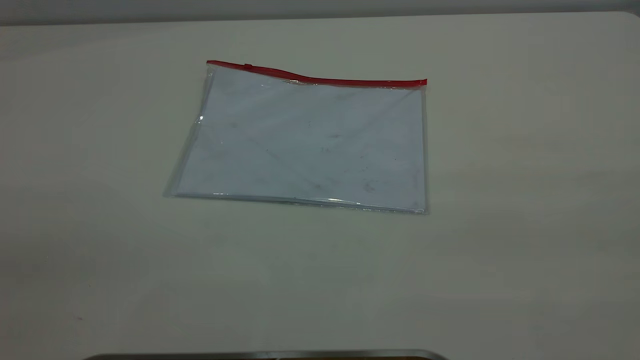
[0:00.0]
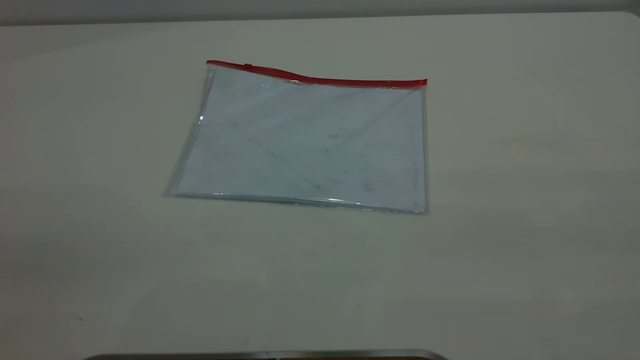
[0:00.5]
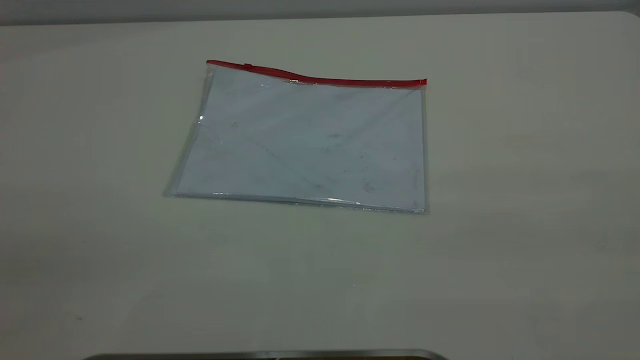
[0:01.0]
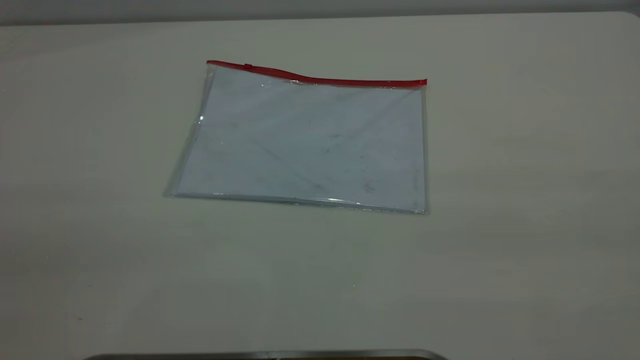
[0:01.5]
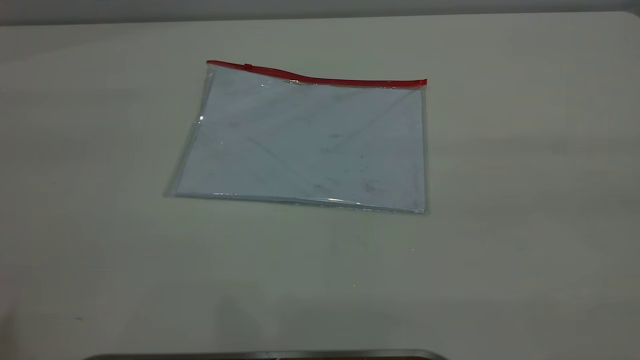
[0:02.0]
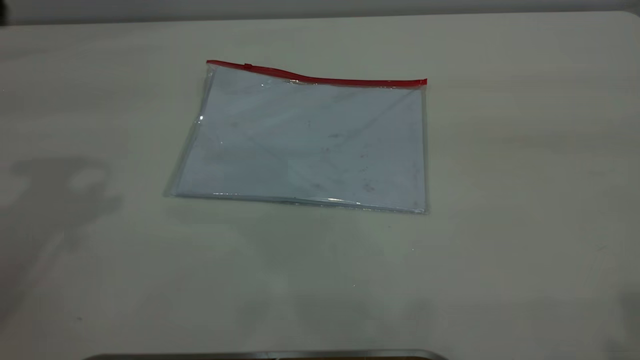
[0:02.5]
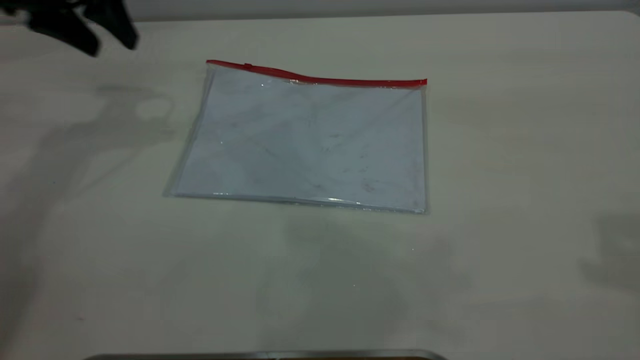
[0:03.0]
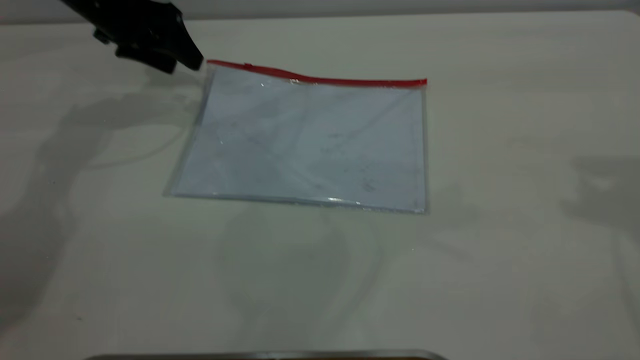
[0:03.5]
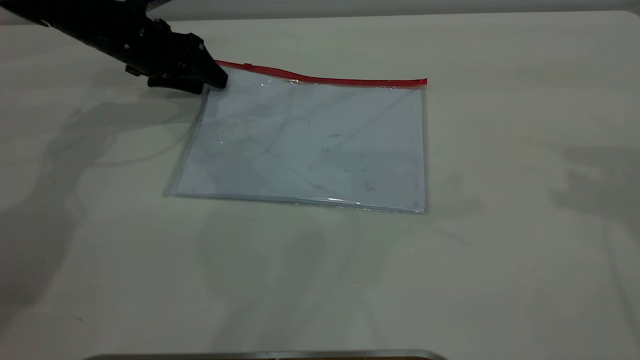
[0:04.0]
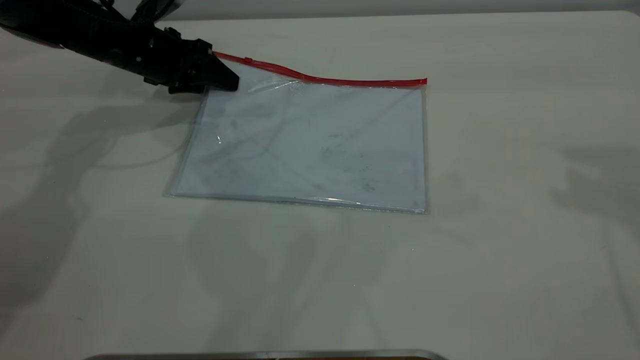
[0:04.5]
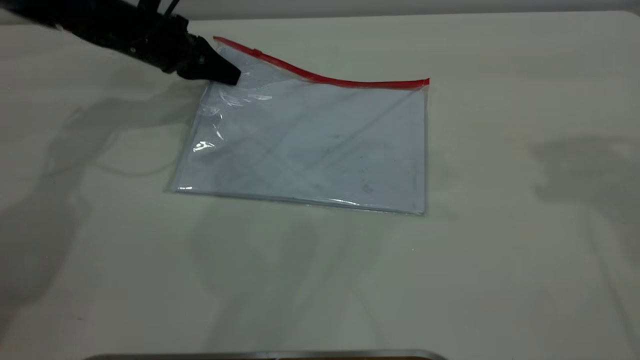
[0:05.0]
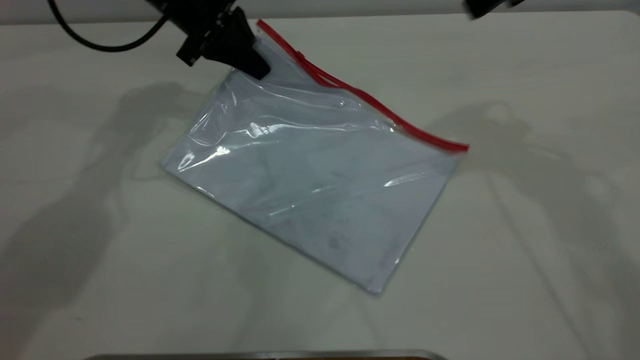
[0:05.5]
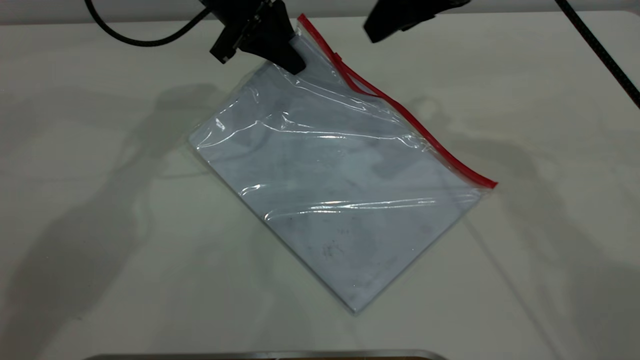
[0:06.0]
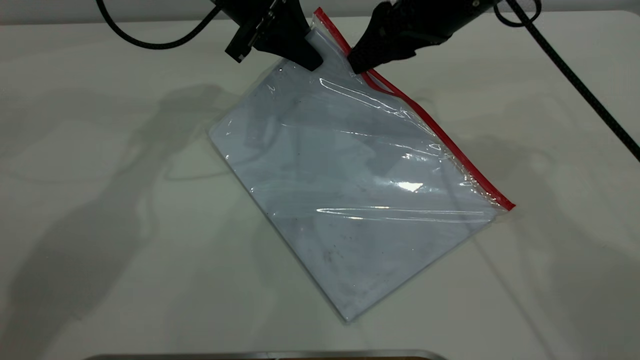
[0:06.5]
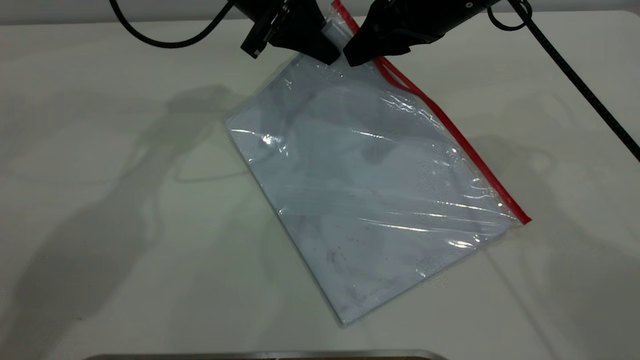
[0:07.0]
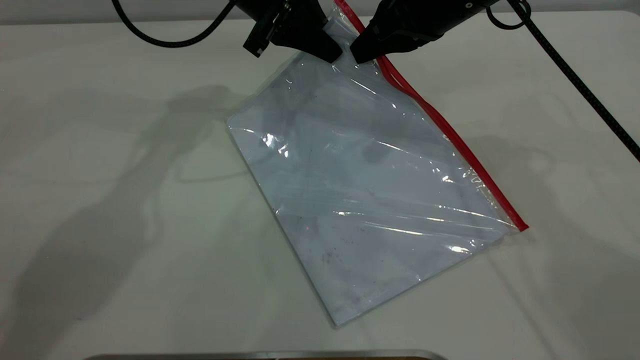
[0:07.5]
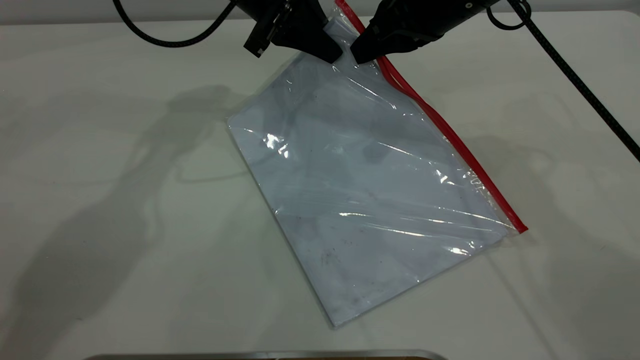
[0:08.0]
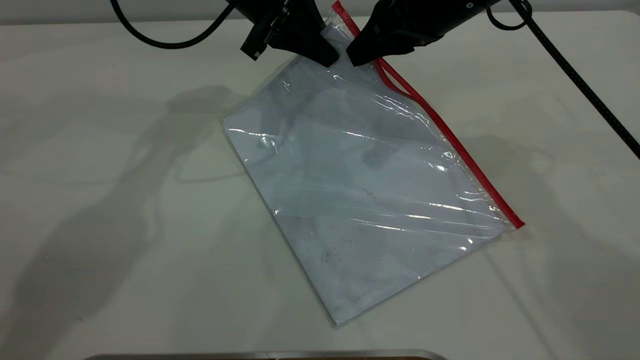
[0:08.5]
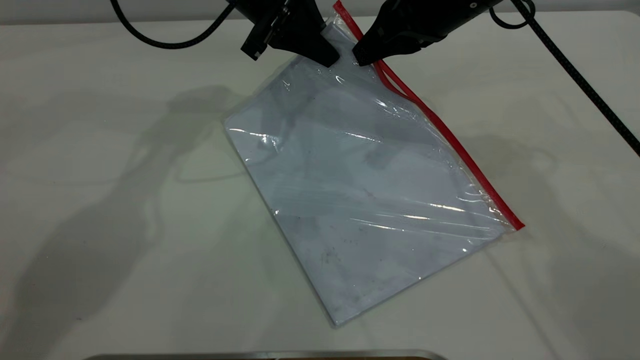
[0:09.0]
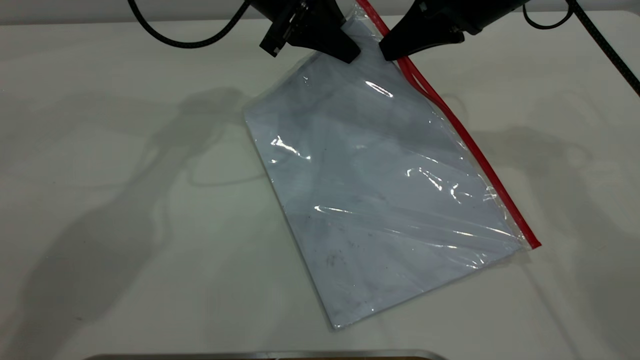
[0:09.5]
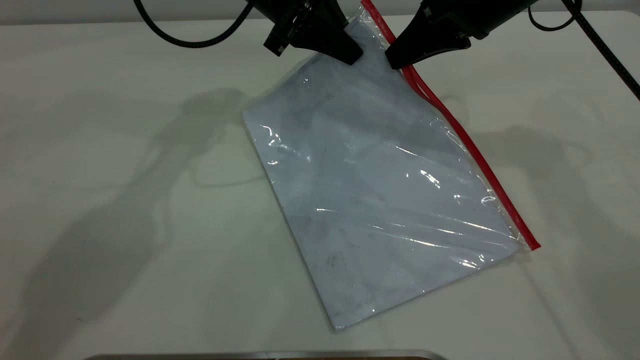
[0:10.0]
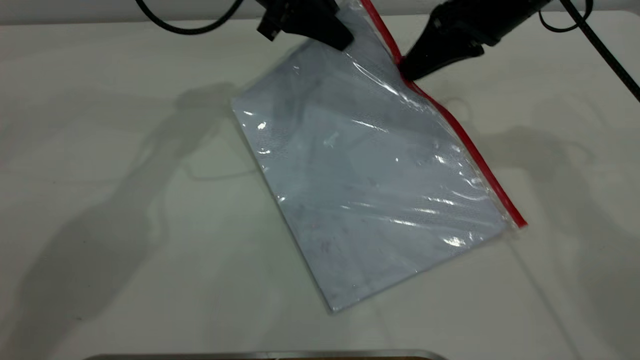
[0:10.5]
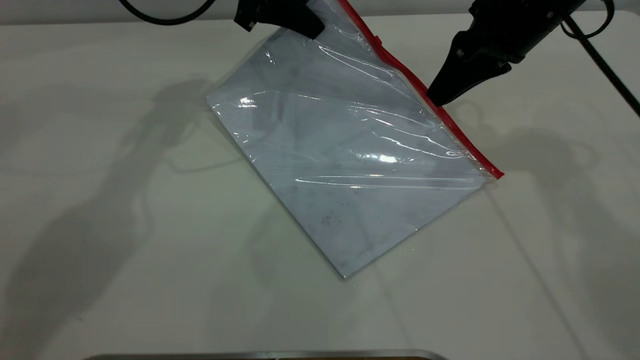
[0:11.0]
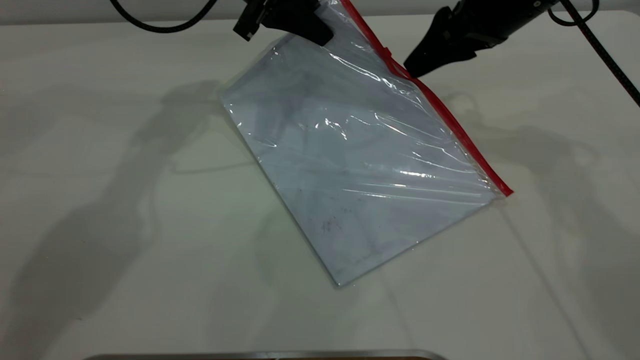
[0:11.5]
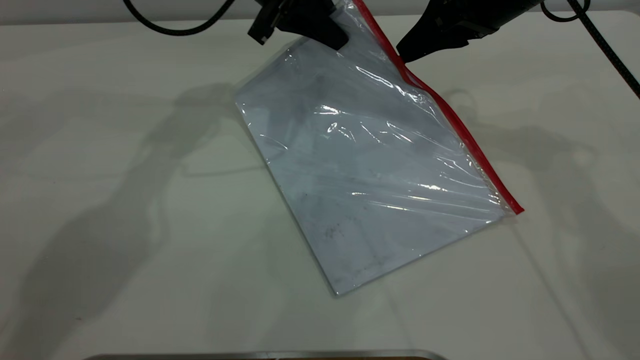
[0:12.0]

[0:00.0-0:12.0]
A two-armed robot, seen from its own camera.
Step, 0:00.0 to 0:05.0: Pick up the transparent plastic bag with the left gripper.
0:02.0 to 0:04.0: The left gripper moves forward and downward, some 50 cm.
0:04.0 to 0:06.0: The right gripper is displaced to the left, downward and forward by approximately 25 cm, while the left gripper travels to the right and upward by some 15 cm, and closes up.
0:06.0 to 0:08.0: The right gripper closes its fingers.
0:08.0 to 0:10.0: The right gripper opens, then closes once more.
0:10.0 to 0:12.0: The right gripper opens up.

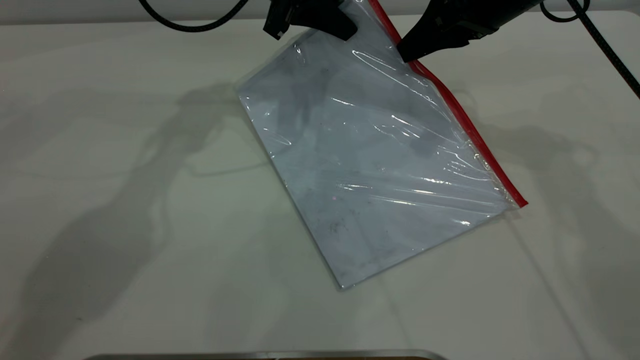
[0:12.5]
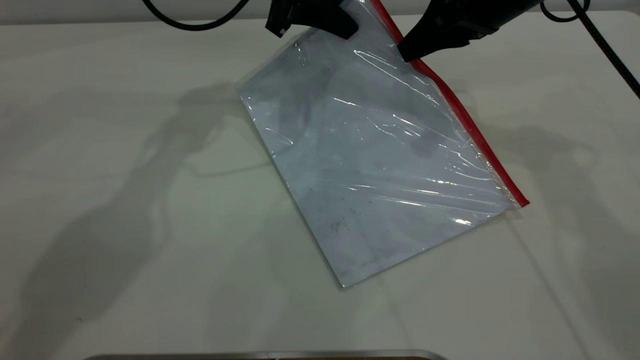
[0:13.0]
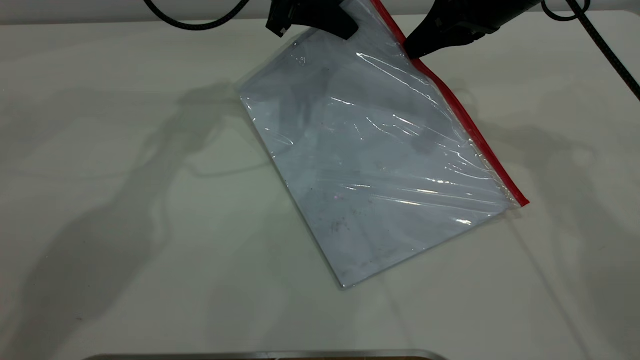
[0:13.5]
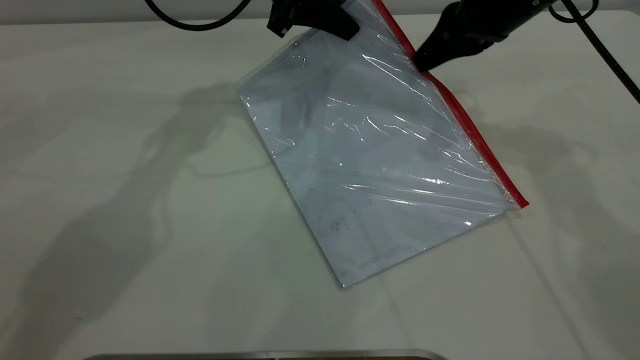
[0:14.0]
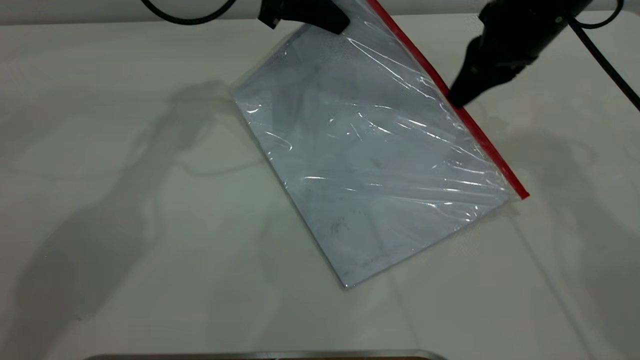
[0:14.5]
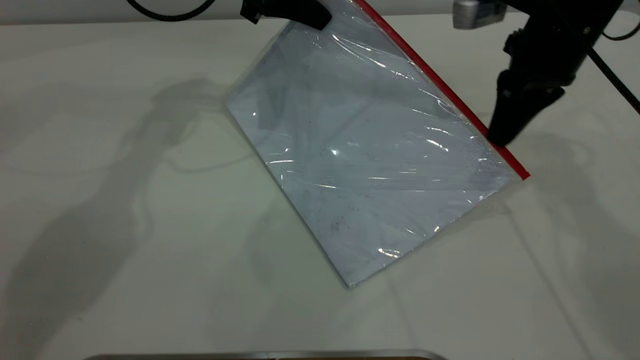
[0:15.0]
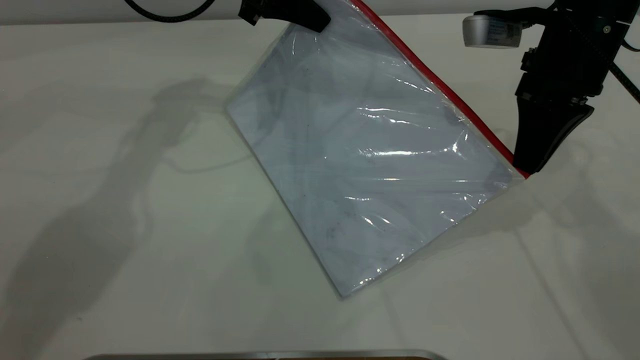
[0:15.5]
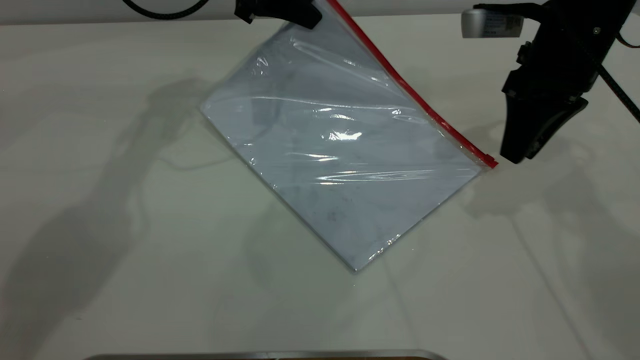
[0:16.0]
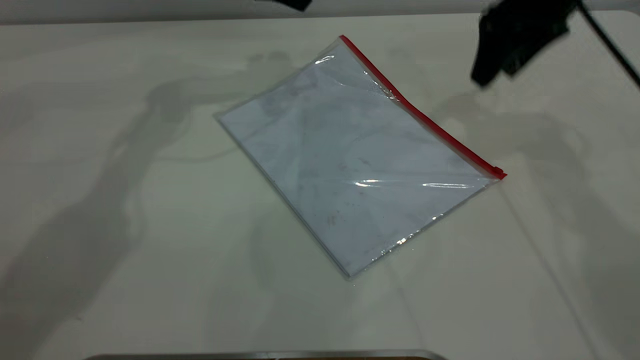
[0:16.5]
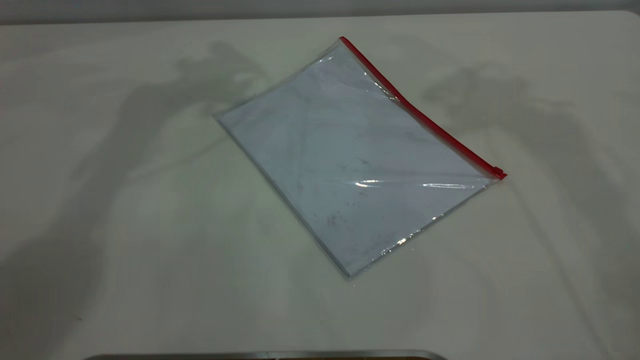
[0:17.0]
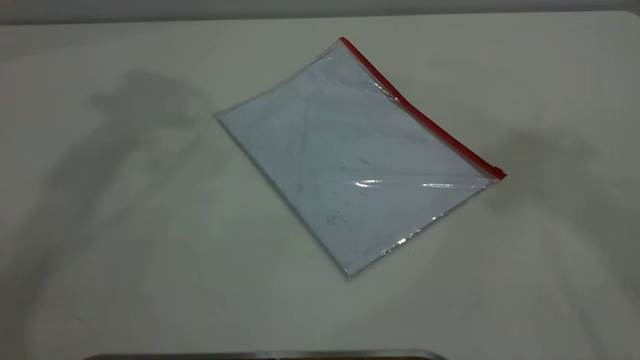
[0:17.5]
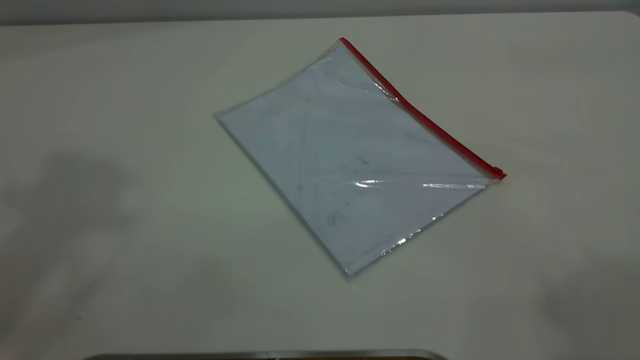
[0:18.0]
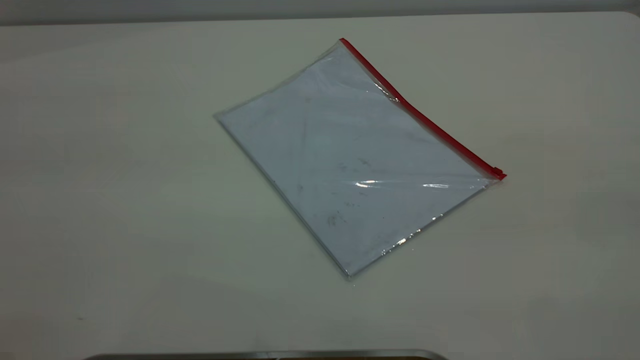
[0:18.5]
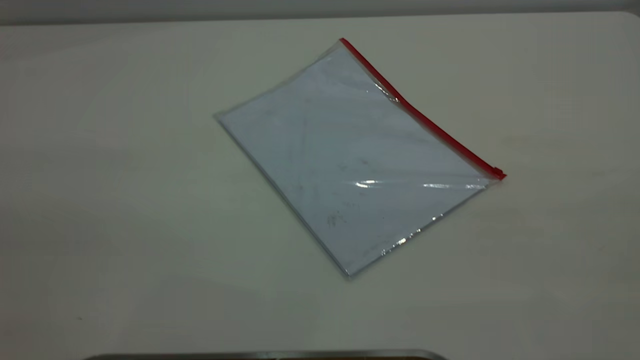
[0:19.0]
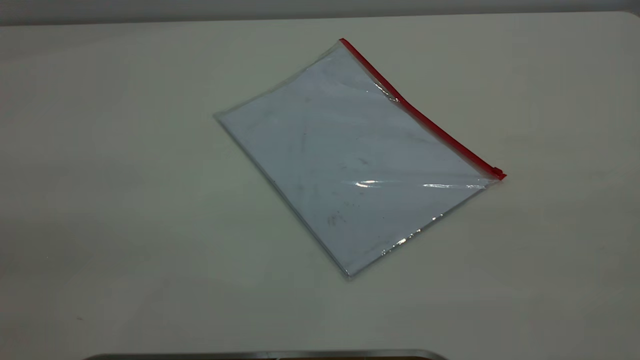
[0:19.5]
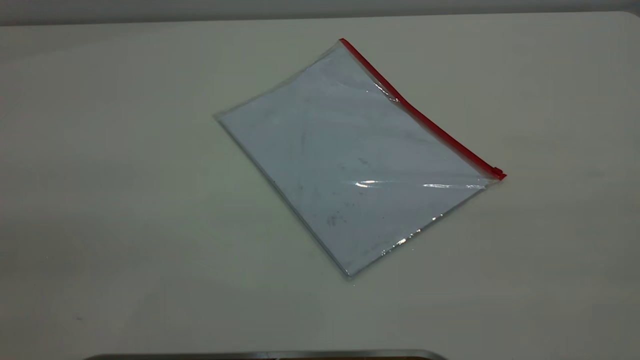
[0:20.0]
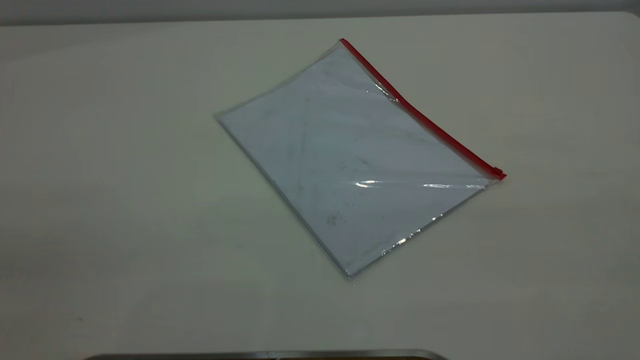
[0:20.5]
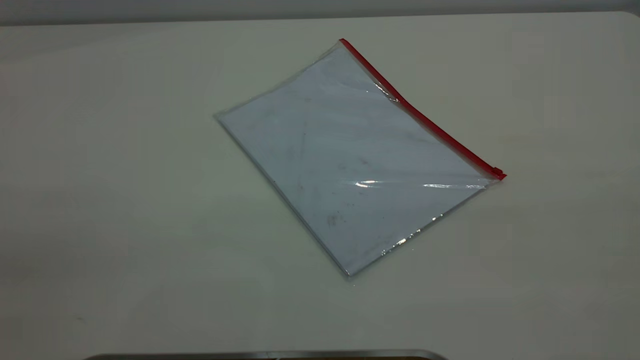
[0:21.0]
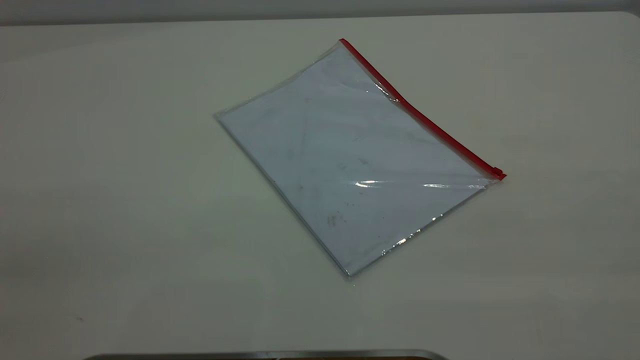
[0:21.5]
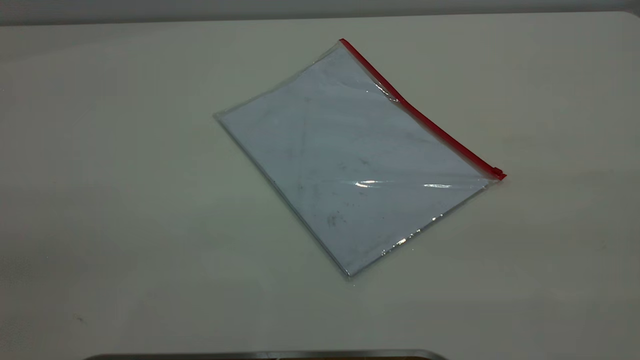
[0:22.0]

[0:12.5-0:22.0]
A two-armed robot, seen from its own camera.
Step, 0:12.5 to 0:16.0: Pulling up the zipper on the transparent plastic bag with the right gripper to close it.
0:12.5 to 0:14.5: The right gripper closes.
0:14.5 to 0:16.5: The right gripper is displaced upward by approximately 5 cm, and opens its fingers. Meanwhile the left gripper moves about 5 cm, and opens its fingers.
0:16.5 to 0:18.0: The right gripper shifts about 40 cm upward and backward.
